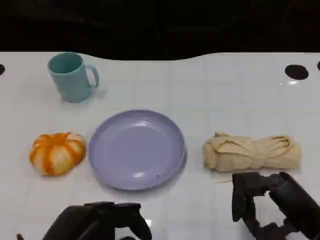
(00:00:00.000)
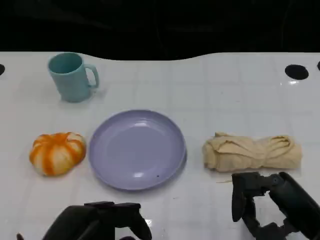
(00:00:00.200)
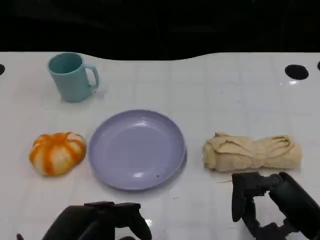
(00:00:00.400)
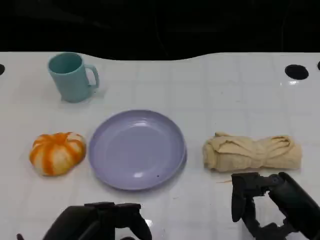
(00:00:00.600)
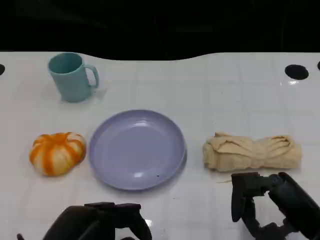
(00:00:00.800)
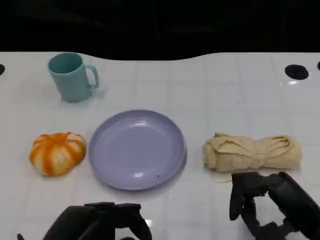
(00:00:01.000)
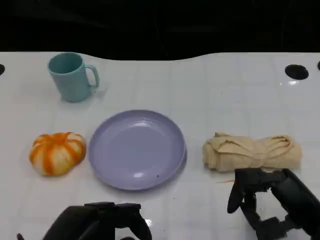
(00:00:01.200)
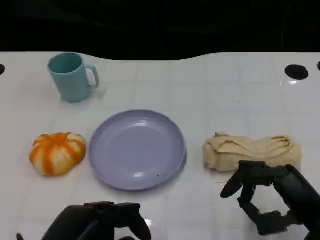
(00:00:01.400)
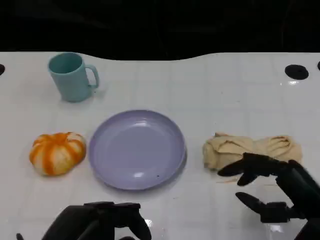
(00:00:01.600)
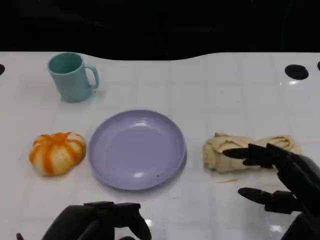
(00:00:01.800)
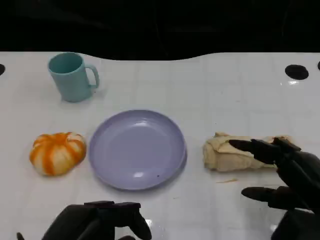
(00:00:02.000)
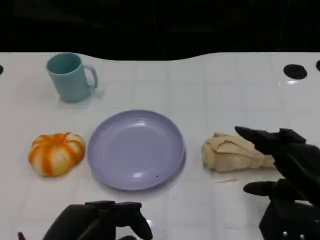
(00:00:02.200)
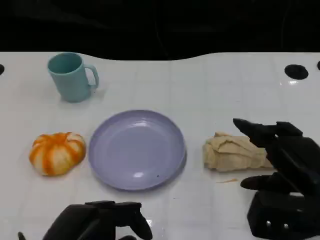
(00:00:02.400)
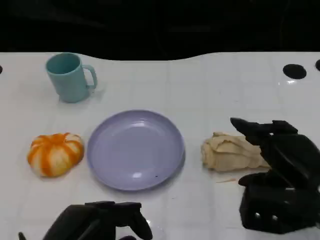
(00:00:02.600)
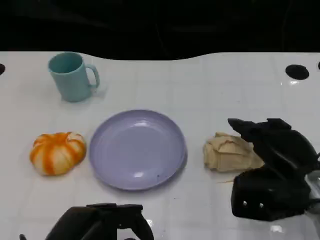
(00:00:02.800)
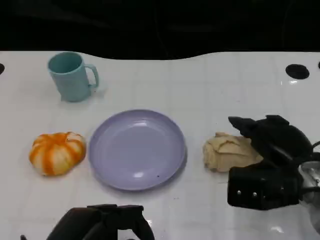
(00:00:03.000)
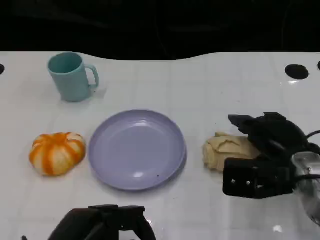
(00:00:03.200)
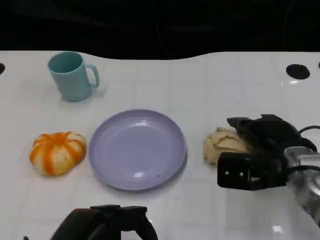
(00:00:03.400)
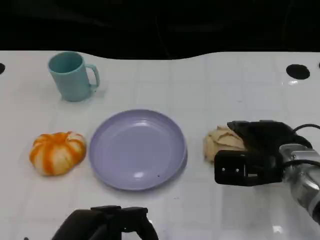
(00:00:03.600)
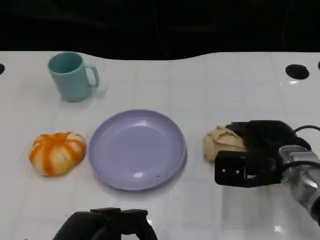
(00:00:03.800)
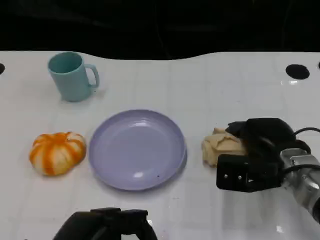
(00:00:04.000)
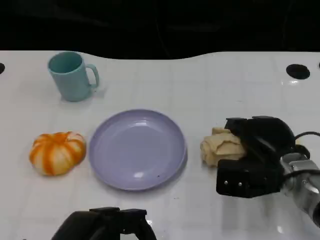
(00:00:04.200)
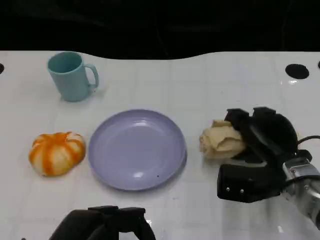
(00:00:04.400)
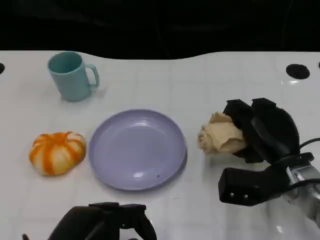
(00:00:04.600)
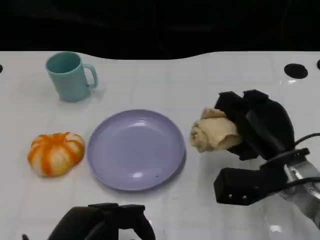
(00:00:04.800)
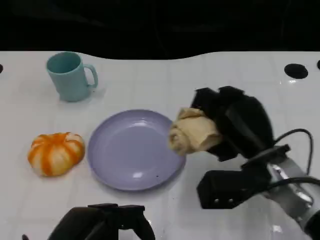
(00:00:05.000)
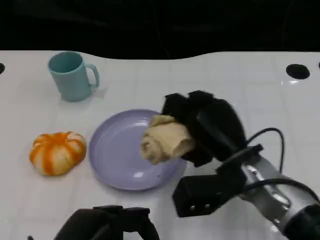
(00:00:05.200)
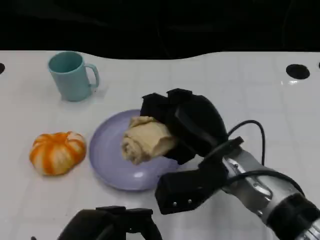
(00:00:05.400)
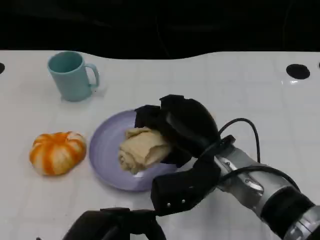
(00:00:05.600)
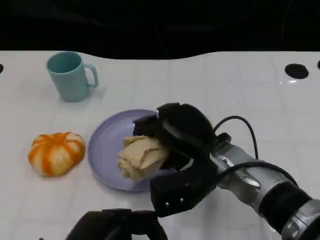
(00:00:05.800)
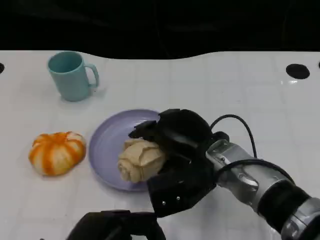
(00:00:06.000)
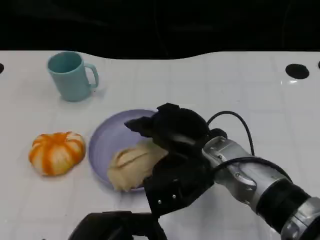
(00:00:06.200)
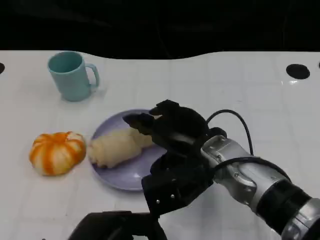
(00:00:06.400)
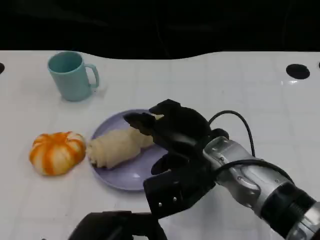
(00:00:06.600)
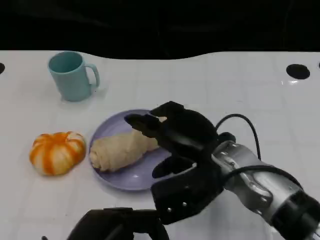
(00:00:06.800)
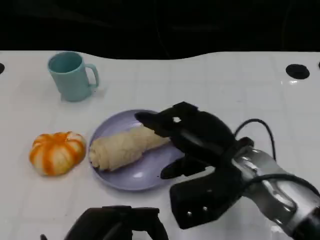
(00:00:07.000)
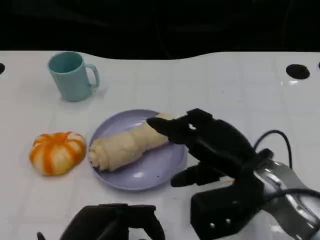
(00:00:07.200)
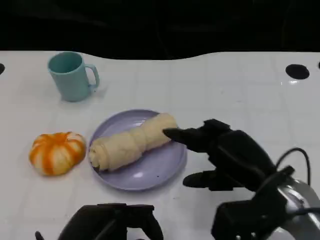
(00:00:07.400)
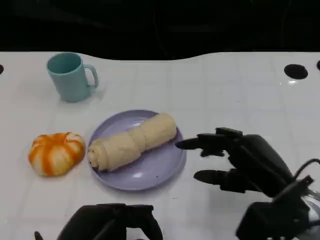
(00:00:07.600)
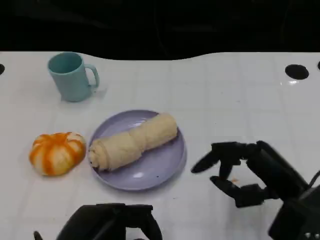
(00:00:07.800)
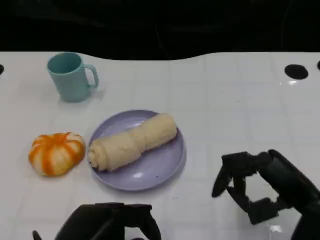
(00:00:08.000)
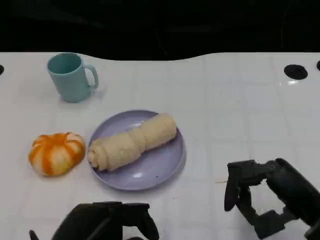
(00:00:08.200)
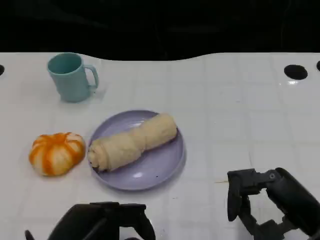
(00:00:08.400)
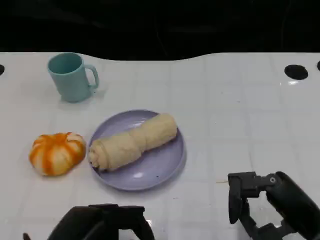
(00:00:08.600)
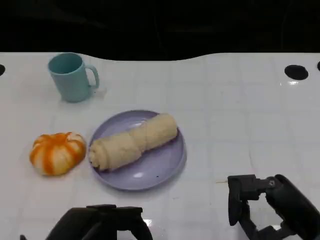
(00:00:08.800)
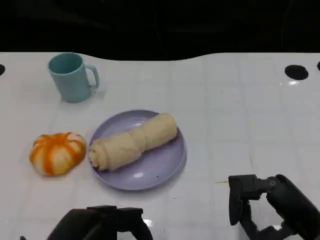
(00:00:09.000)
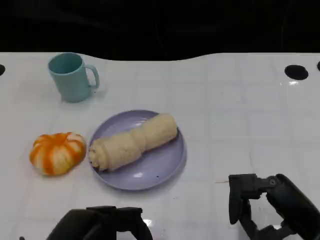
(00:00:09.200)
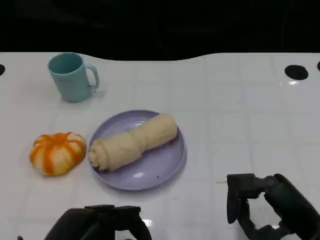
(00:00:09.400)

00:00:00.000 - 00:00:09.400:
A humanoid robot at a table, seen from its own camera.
Task of the whole recording: Grasp the towel on the left side of the plate with the left hand and place it into the plate.
00:00:00.000 - 00:00:01.600: There are only small adjustments of the hands.
00:00:01.600 - 00:00:03.200: The right hand shifts roughly 10 cm forward.
00:00:04.800 - 00:00:06.200: The right hand goes some 10 cm to the left.
00:00:06.200 - 00:00:07.800: The right hand travels to the right and backward by roughly 15 cm.
00:00:07.800 - 00:00:09.400: The hands move only a little.

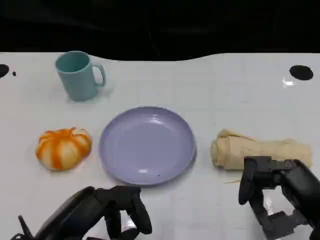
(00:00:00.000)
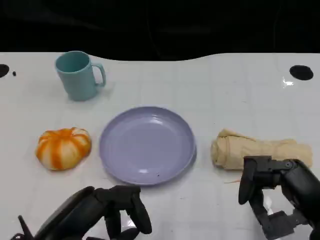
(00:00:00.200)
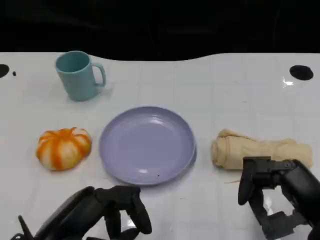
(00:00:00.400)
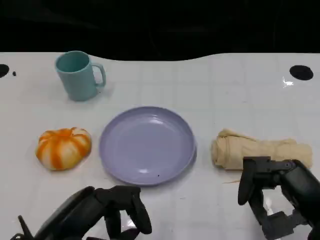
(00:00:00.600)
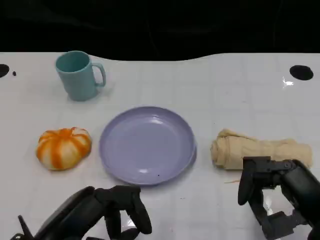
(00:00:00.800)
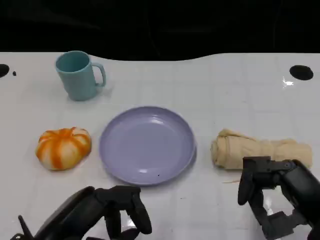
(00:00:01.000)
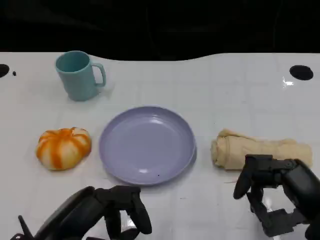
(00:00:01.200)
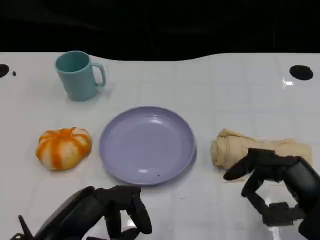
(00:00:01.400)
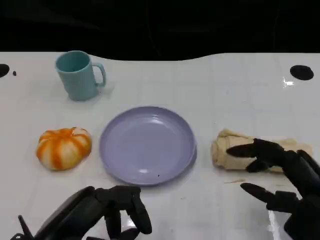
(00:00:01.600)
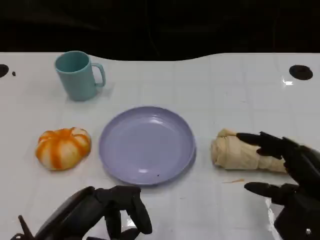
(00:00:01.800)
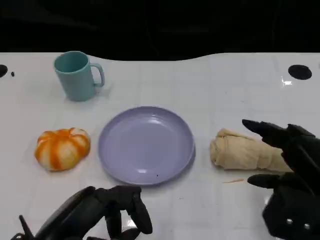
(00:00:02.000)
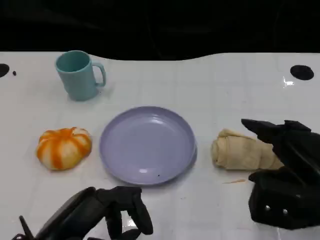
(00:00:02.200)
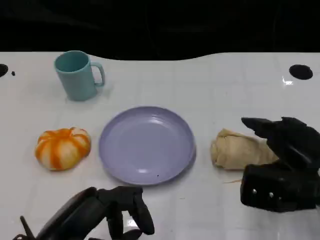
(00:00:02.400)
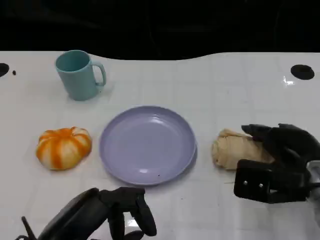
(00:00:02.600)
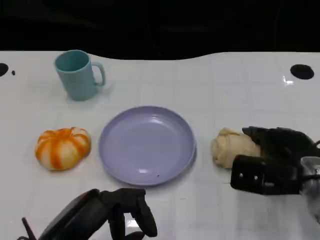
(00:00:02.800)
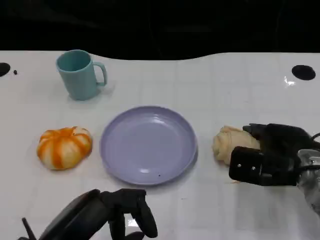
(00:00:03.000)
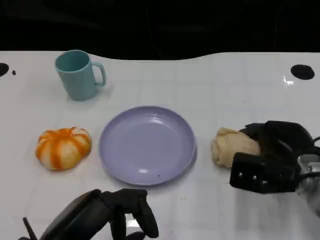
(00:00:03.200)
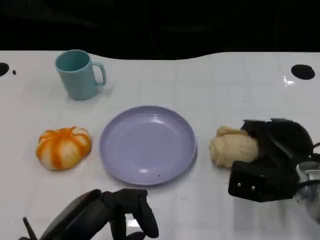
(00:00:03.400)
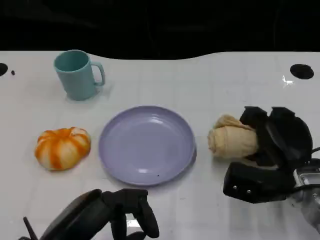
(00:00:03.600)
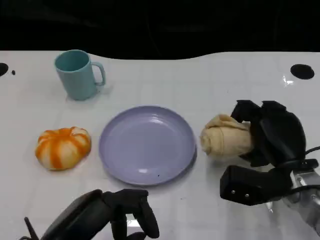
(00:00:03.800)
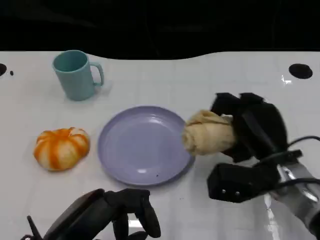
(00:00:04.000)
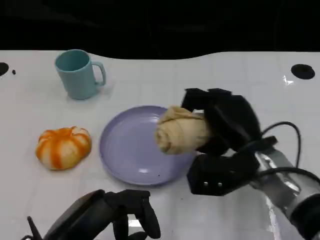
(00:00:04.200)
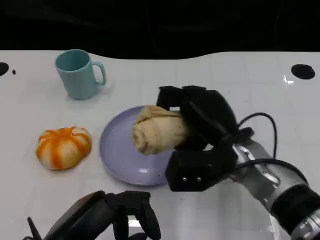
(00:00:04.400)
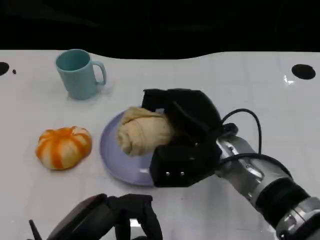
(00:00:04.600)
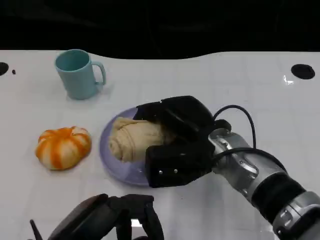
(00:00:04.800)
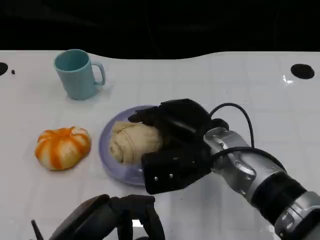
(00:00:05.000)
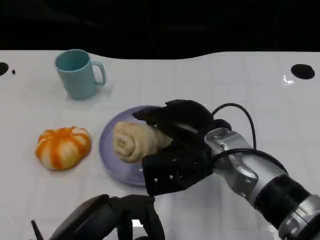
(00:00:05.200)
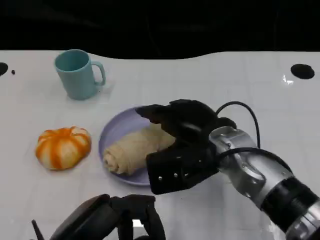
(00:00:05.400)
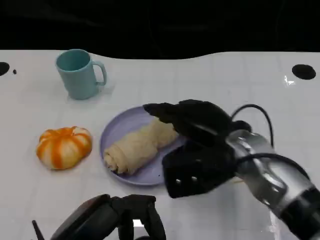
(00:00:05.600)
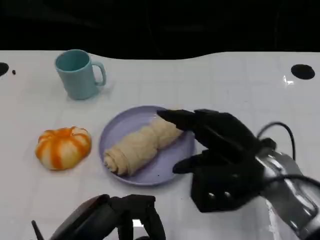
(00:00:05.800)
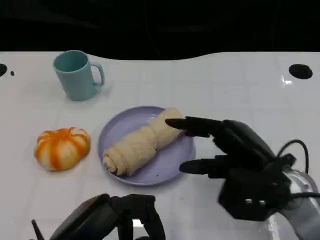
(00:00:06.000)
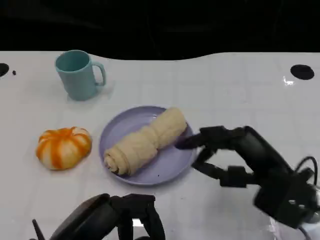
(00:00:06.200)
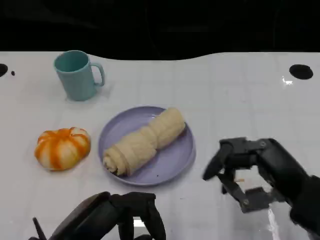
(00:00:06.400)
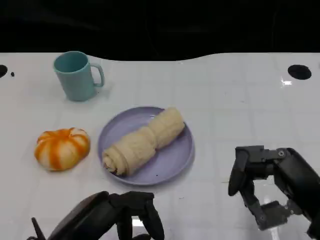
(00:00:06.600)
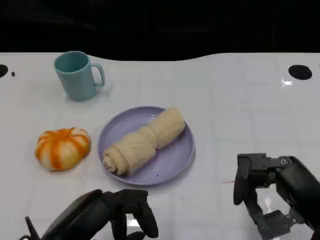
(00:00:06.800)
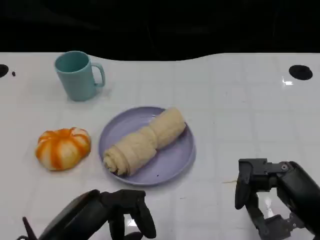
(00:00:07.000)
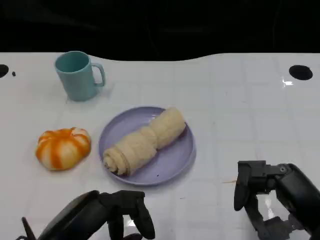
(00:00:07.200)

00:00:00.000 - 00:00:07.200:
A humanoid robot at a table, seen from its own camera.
Task of the whole recording: Grasp the towel on the left side of the plate with the left hand and place it into the plate.
00:00:00.000 - 00:00:01.400: The hands stay close to where they were, moving slightly.
00:00:01.400 - 00:00:02.800: The right hand heads forward, covering approximately 10 cm.
00:00:02.800 - 00:00:04.400: The right hand moves to the left, roughly 10 cm.
00:00:04.400 - 00:00:05.800: The right hand travels to the right by roughly 5 cm.
00:00:05.800 - 00:00:07.200: The right hand shifts some 10 cm backward and to the right.

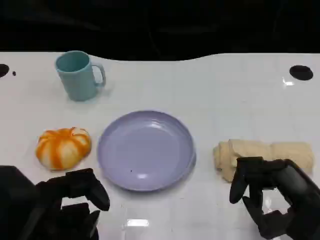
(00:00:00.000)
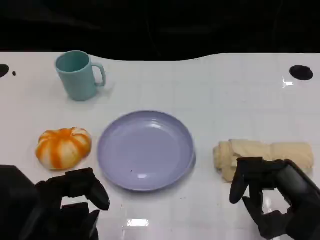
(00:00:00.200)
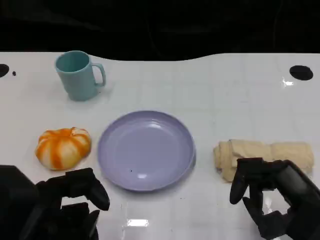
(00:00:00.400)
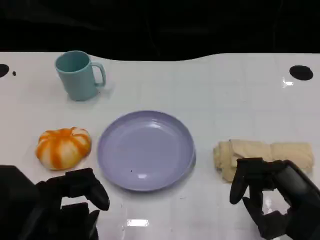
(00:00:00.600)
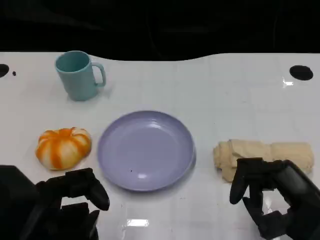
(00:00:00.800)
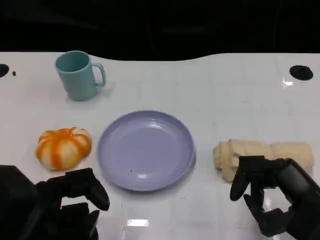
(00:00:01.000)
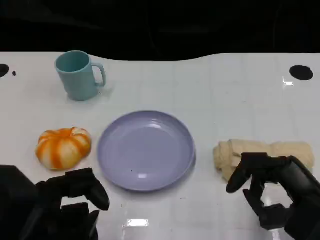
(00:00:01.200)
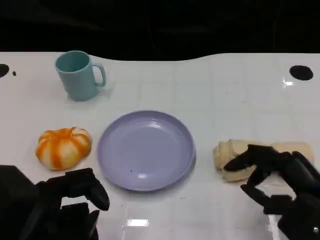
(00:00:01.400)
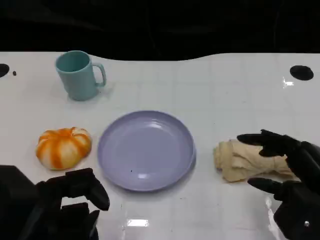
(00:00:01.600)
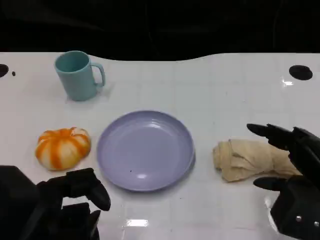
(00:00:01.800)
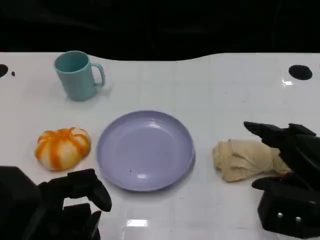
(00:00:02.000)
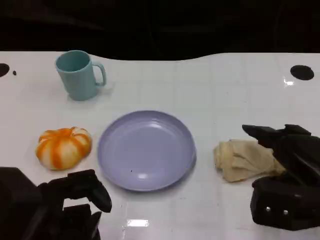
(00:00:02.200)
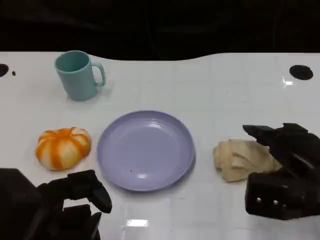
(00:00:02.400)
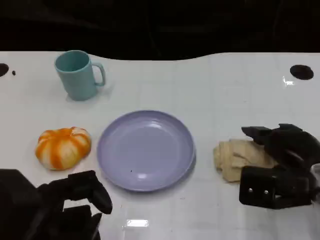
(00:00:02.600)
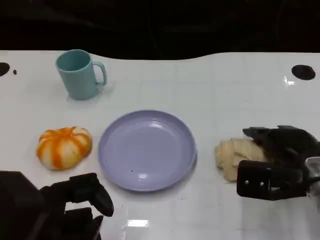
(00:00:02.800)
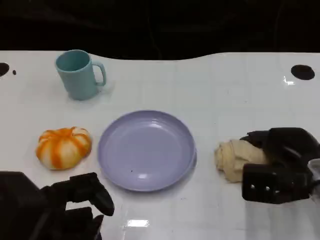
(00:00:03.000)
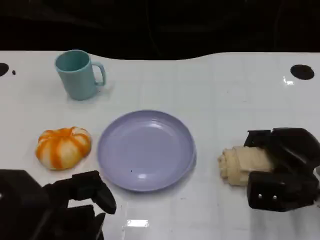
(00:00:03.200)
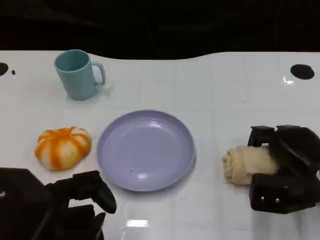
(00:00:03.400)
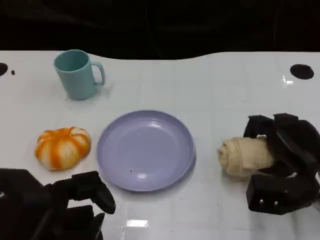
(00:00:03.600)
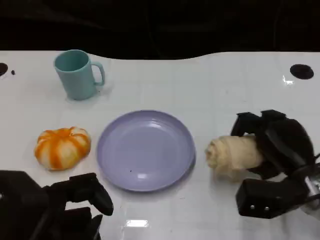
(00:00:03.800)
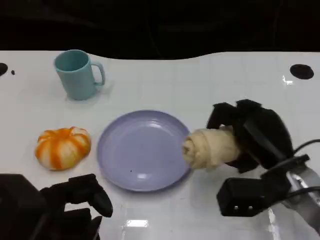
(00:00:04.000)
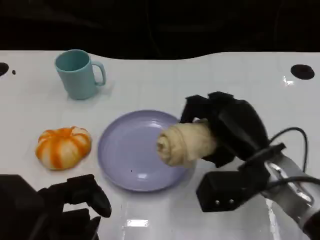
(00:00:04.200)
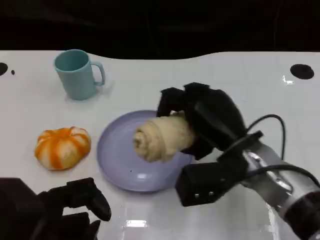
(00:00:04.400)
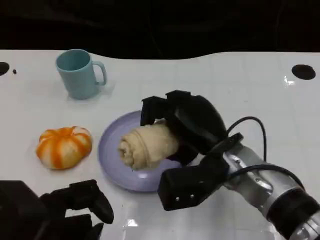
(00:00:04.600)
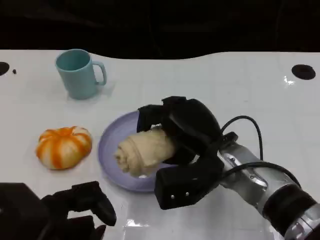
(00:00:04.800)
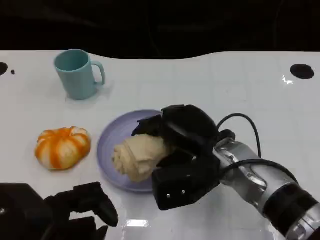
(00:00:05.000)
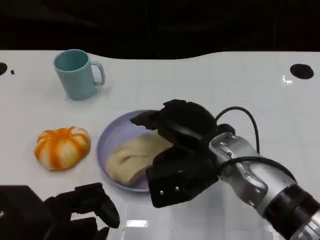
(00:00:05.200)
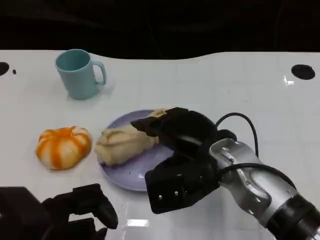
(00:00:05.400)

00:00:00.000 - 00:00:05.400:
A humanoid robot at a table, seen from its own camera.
Task of the whole recording: Grasp the towel on the left side of the plate with the left hand and place it into the plate.
00:00:00.000 - 00:00:01.400: There are only small adjustments of the hands.
00:00:01.400 - 00:00:02.800: The right hand shifts about 10 cm forward.
00:00:04.000 - 00:00:05.400: The right hand shifts some 10 cm to the left and upward.
